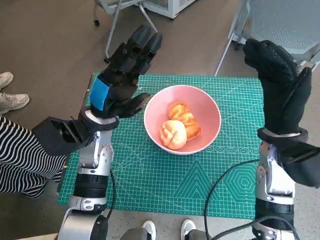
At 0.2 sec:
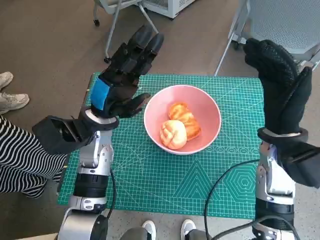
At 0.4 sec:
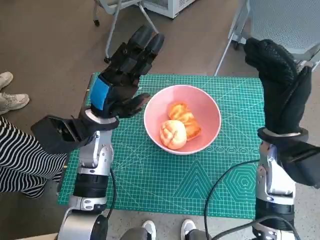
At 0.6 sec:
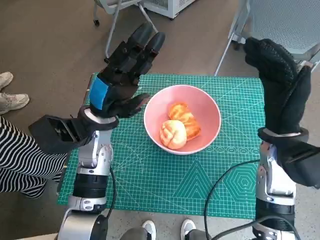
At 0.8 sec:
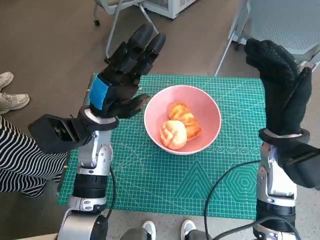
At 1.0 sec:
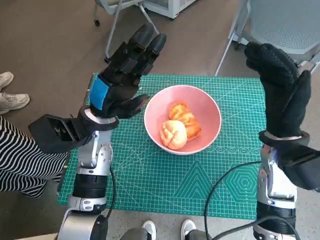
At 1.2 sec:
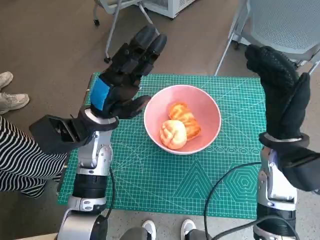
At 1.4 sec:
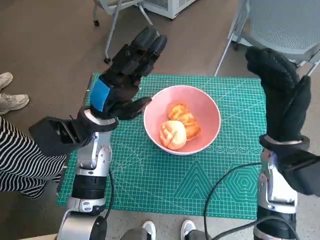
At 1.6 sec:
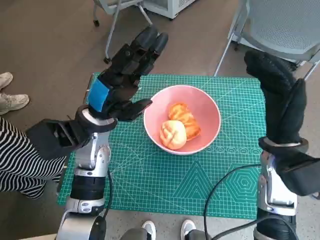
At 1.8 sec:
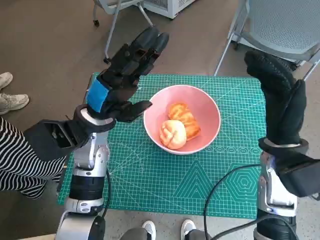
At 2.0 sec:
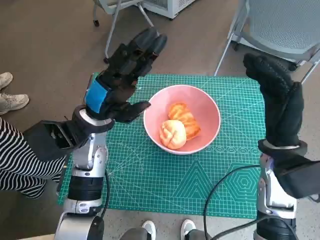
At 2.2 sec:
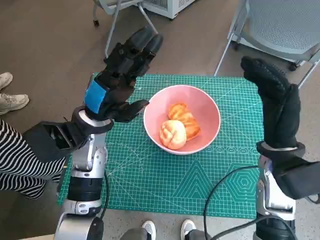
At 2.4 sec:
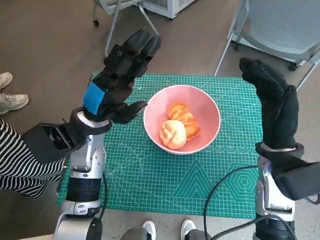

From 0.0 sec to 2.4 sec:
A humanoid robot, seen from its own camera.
Task of the whole recording: Push the bowl into the center of the table and put the bread into the bowl.
From 0.0 sec to 1.2 sec: The two hands keep their place.
From 1.2 sec to 2.4 sec: The hands stay close to where they were, moving slightly.
